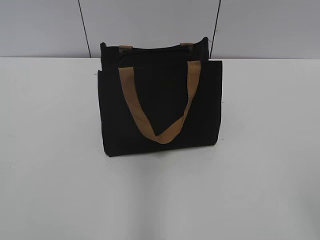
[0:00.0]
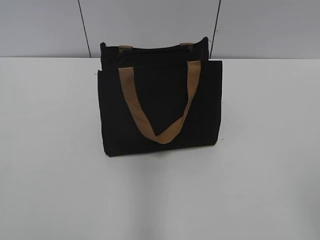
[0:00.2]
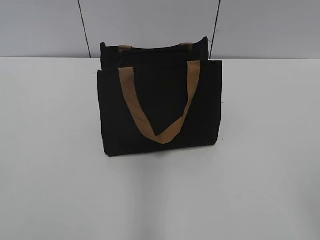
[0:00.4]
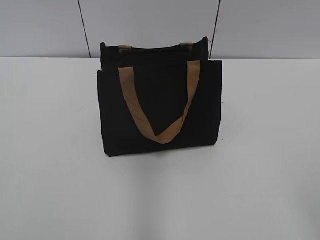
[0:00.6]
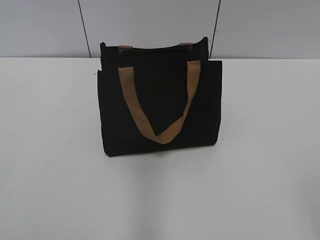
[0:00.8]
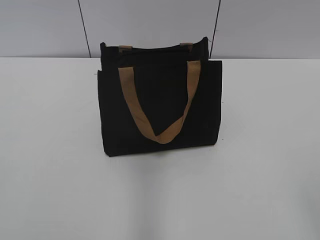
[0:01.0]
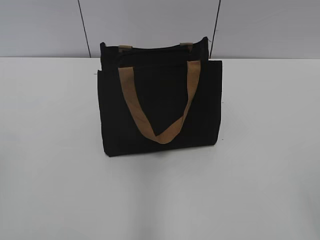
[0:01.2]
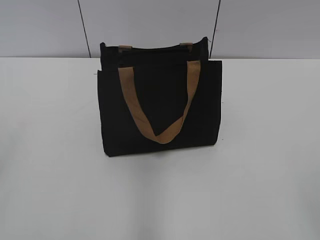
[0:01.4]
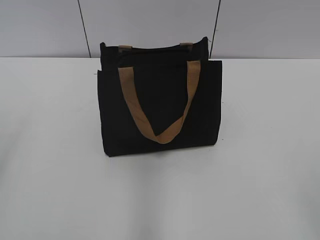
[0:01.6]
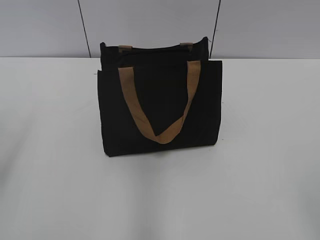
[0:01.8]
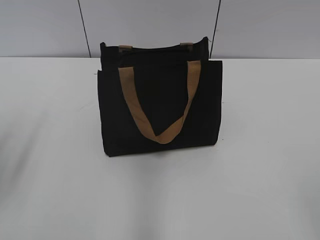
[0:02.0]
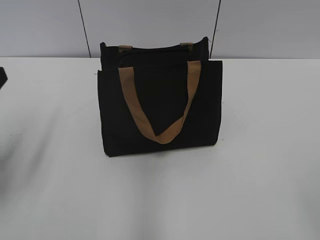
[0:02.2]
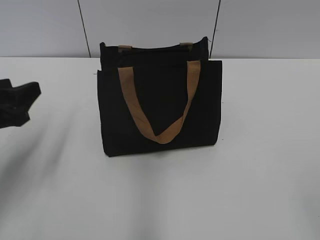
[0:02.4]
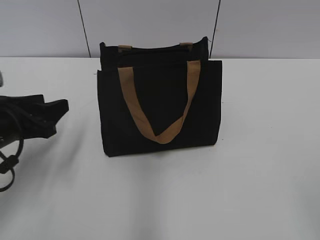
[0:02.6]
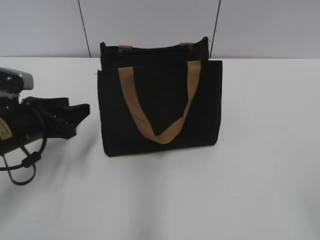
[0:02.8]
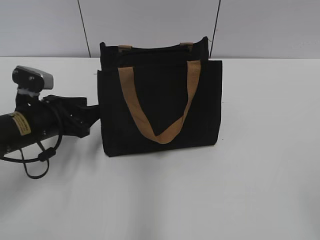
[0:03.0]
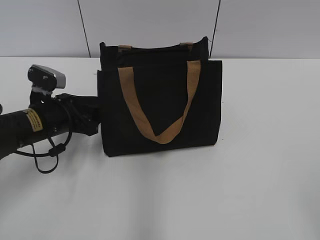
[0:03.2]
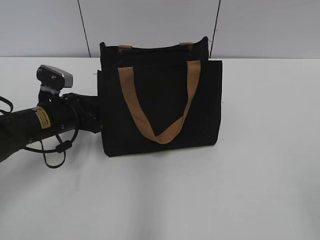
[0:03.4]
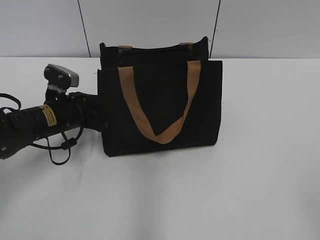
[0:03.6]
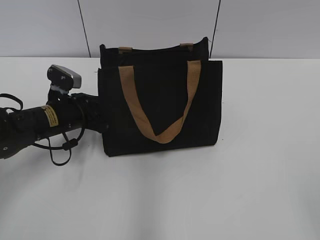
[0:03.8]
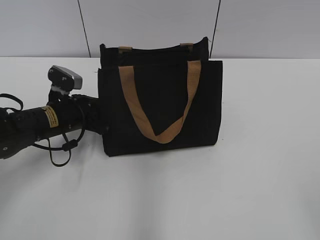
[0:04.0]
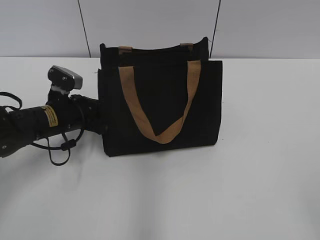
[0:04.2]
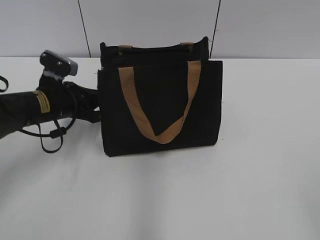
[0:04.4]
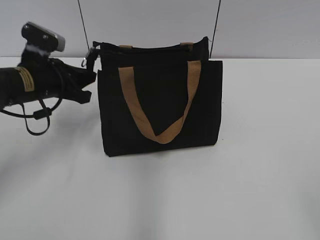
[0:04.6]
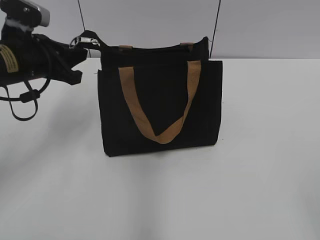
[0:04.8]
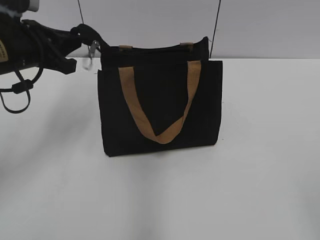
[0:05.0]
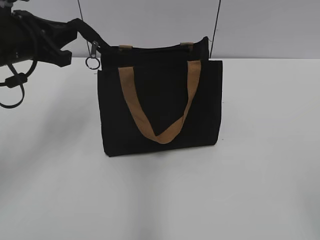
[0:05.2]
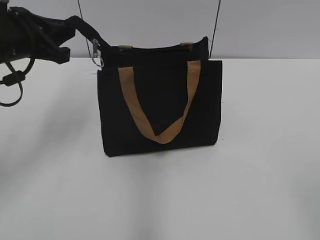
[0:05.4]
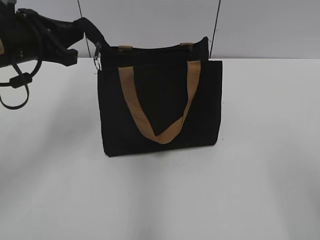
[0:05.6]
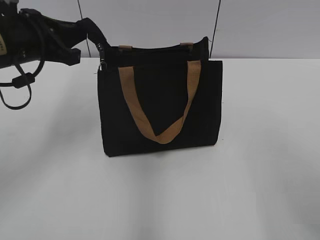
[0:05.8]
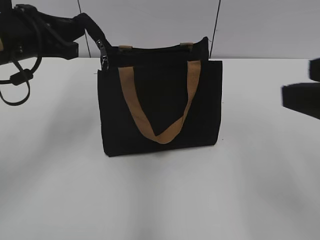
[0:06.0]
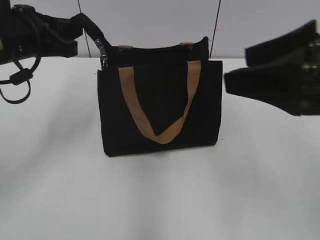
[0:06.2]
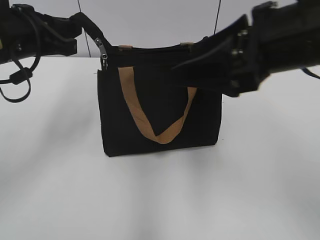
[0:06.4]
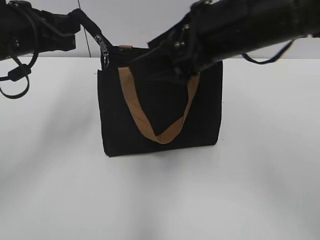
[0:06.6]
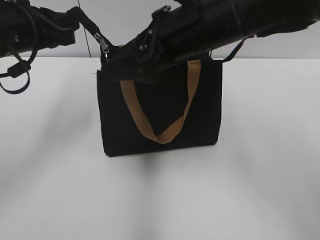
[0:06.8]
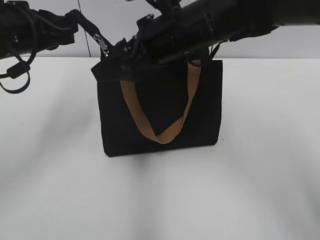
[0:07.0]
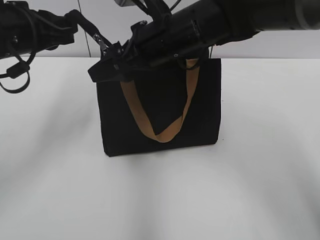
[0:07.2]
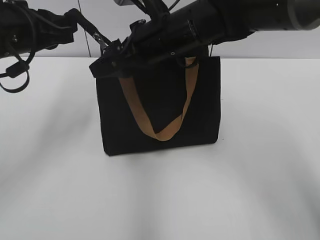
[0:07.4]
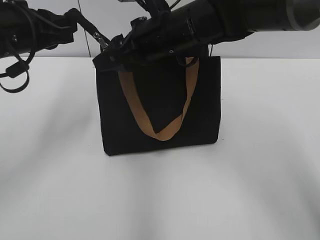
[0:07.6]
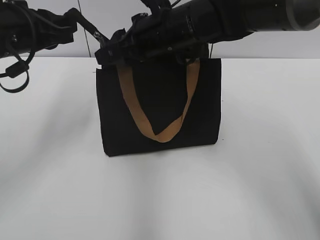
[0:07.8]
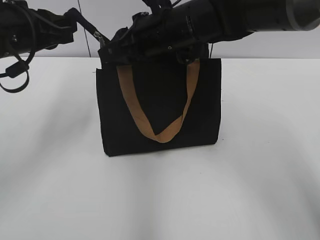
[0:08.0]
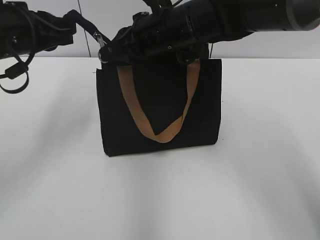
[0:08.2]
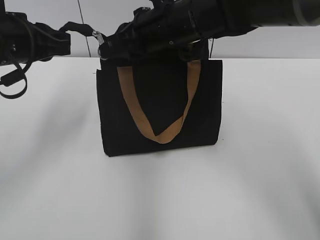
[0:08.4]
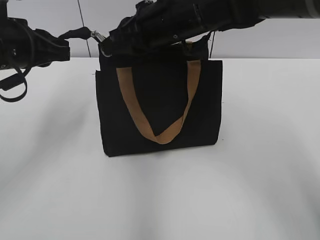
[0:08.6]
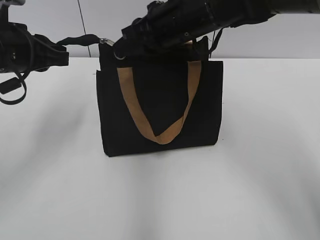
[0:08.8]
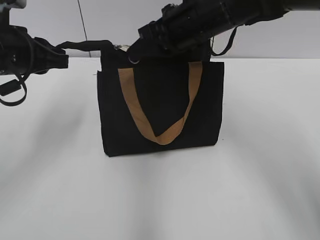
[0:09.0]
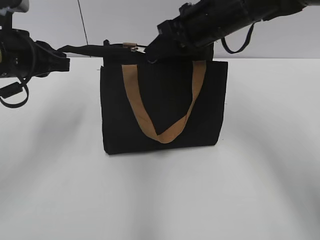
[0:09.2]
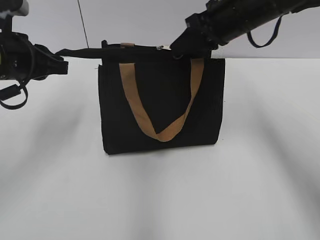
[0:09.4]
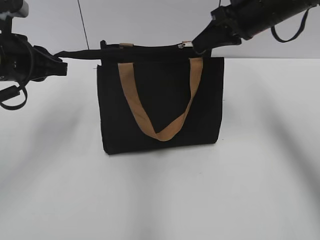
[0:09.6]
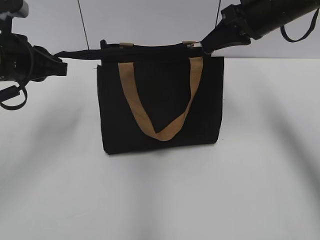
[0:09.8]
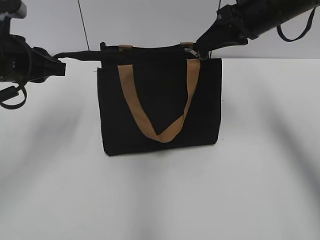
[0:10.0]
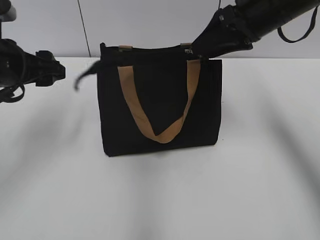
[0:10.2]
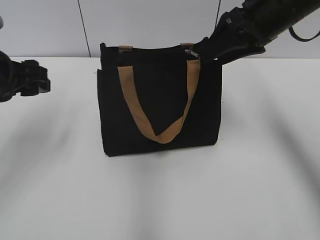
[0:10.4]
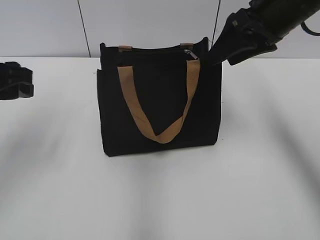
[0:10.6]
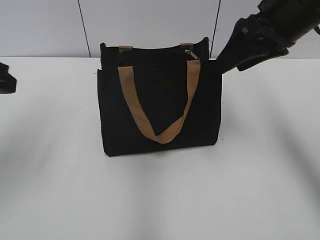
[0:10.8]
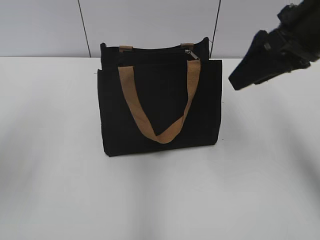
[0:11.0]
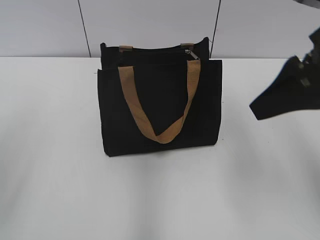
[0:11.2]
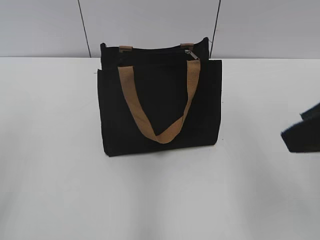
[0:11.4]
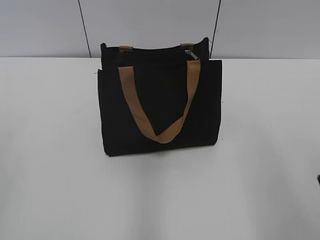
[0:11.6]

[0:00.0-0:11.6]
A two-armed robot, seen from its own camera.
Step, 0:00.0 to 0:09.8: Zip up the bag with your right hand.
0:01.4 to 0:02.8: The left gripper moves forward and downward, some 25 cm.
0:02.8 to 0:04.4: The left gripper shifts some 10 cm forward, and closes its fingers.
0:04.4 to 0:05.8: The left gripper travels upward by roughly 15 cm.
0:05.8 to 0:07.2: The right gripper moves forward and to the left, some 35 cm.
0:07.2 to 0:08.8: The right gripper closes its fingers.
0:08.8 to 0:10.2: The left gripper opens. The right gripper goes roughly 15 cm to the right, and opens.
0:10.2 to 0:11.6: Both grippers travel together backward, some 25 cm.

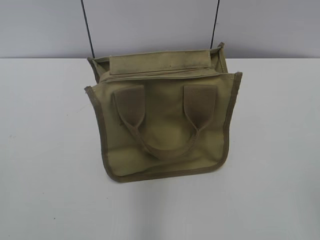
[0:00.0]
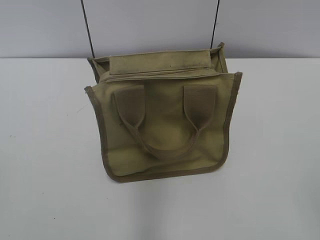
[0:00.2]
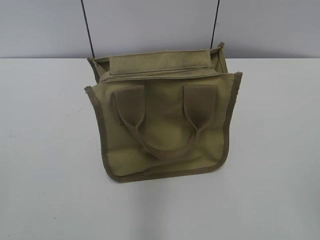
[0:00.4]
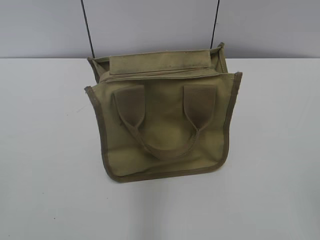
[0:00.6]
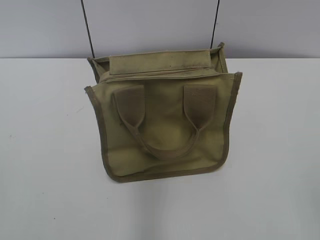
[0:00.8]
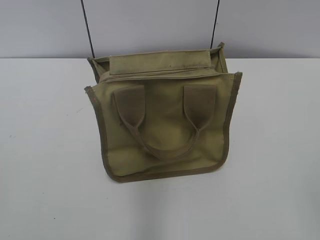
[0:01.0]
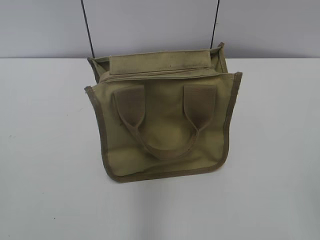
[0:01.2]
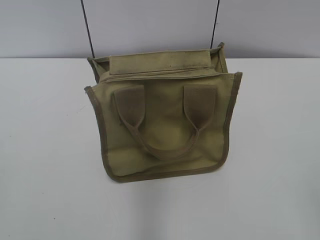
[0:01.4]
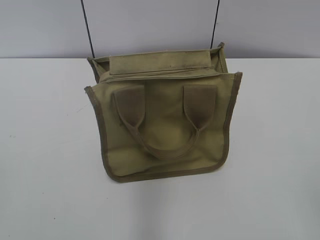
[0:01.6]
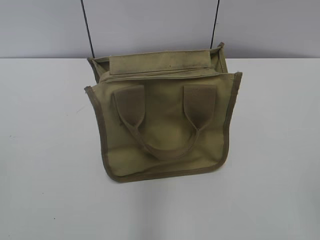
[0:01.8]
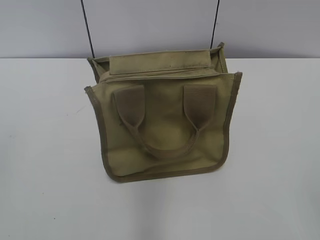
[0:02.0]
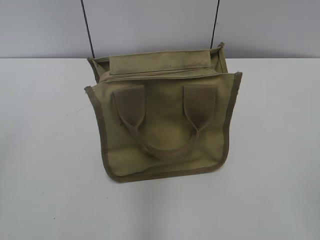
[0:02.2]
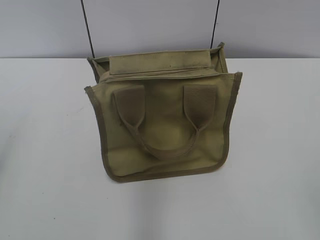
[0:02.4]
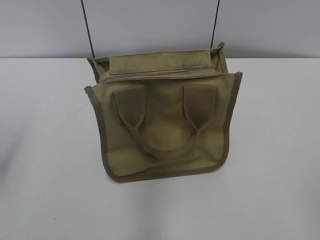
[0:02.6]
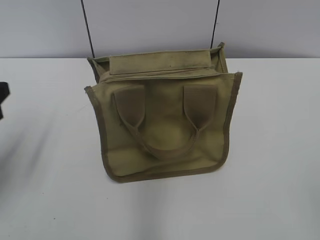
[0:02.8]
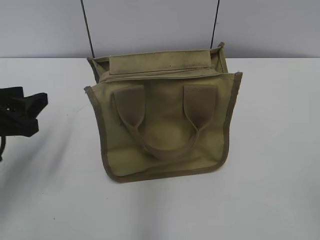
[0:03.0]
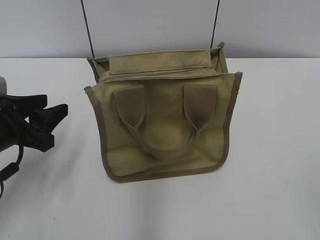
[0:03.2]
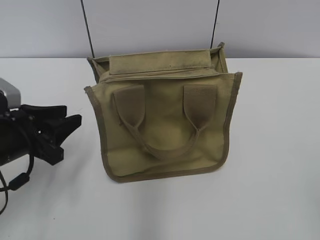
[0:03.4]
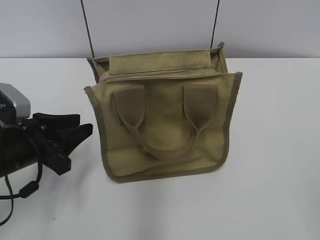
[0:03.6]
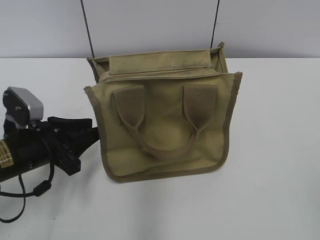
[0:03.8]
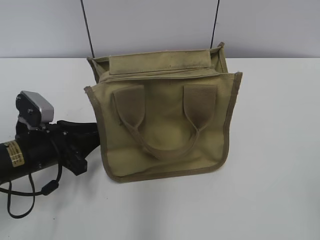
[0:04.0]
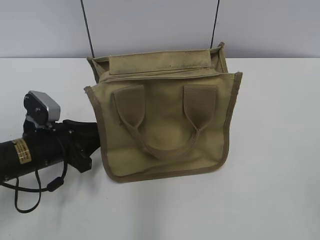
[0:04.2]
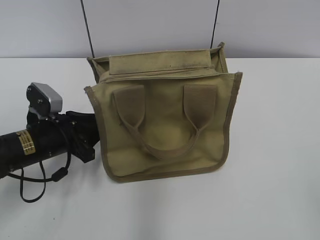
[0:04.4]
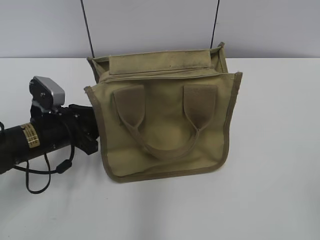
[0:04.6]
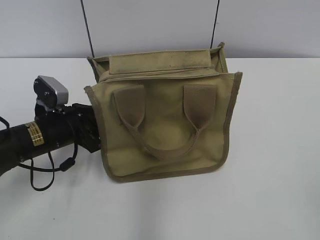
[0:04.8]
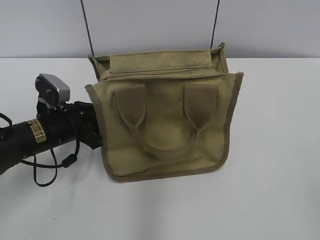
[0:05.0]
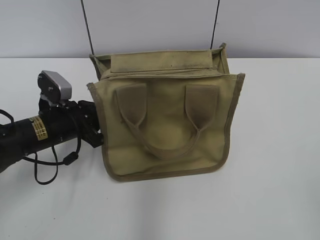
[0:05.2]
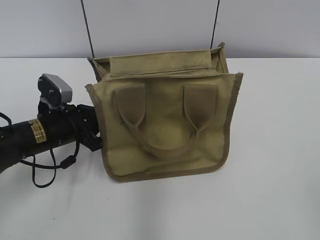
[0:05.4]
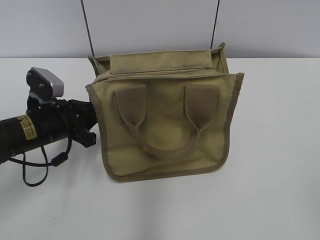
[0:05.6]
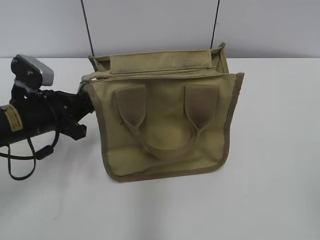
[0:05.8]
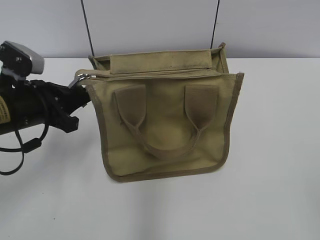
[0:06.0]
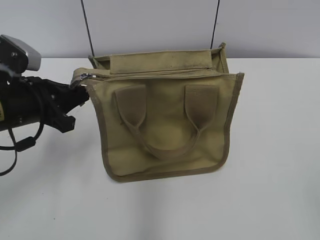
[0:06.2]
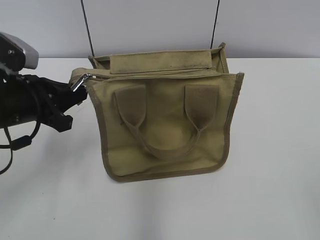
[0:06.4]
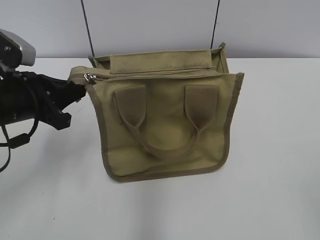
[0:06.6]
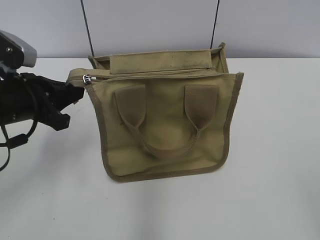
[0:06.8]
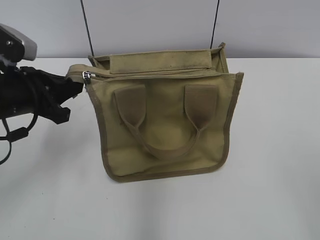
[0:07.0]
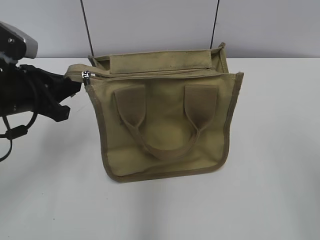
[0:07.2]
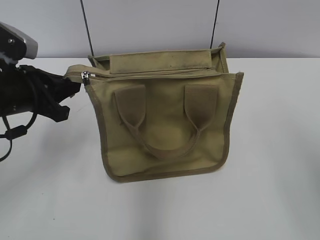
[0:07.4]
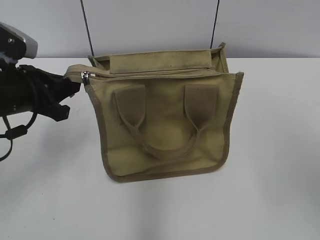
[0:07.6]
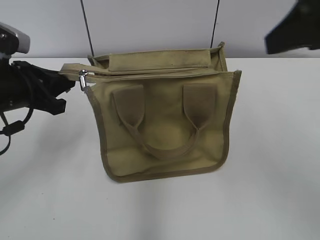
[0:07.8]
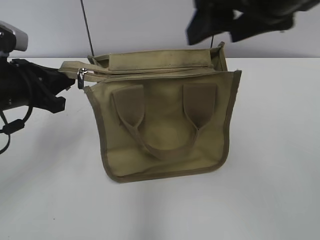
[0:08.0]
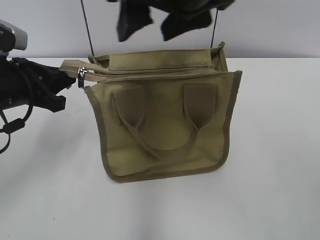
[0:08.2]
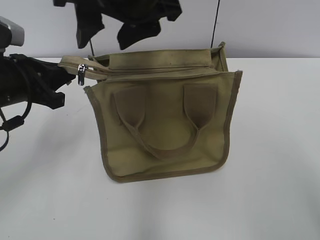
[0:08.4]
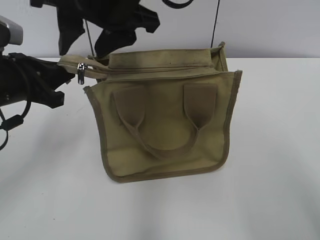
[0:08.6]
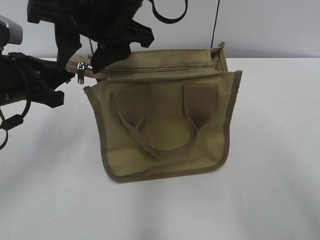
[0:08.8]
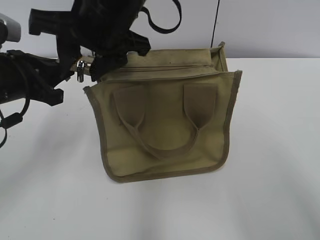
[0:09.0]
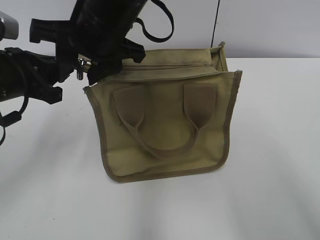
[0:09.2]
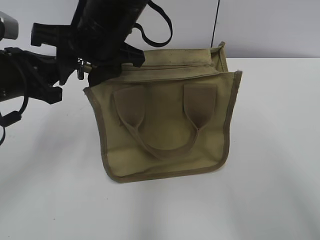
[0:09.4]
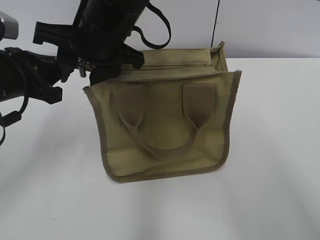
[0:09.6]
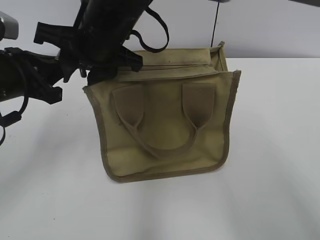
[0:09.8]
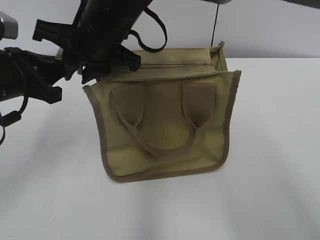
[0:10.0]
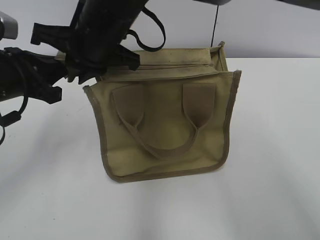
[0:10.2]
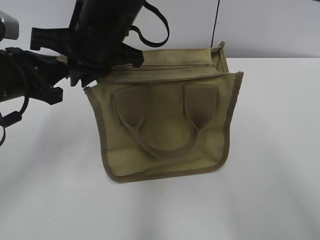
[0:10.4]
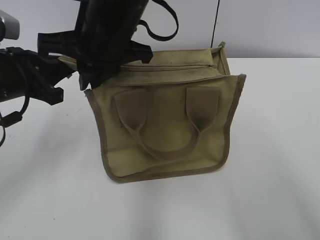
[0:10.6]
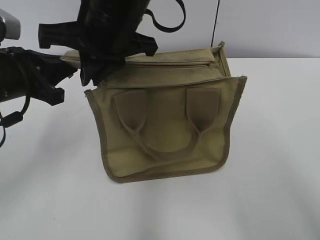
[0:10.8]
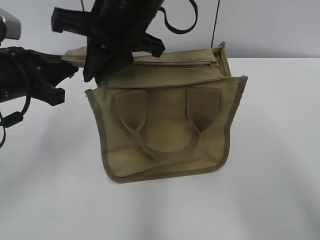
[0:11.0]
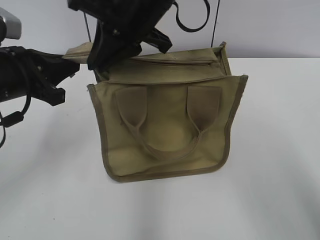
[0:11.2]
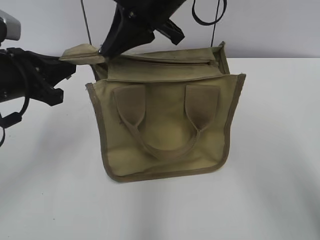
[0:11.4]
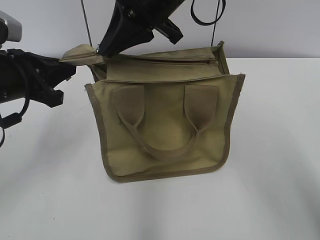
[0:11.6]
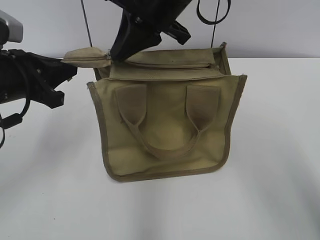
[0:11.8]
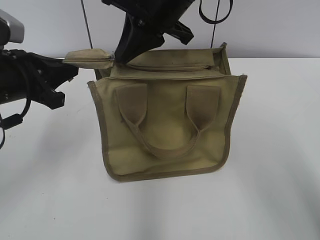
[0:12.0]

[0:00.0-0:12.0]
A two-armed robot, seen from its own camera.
0:01.6 to 0:03.0: The left gripper travels forward and downward by about 25 cm.
0:03.0 to 0:04.4: The left gripper heads downward and to the right, covering about 10 cm, and closes up.
0:04.4 to 0:06.0: The left gripper goes approximately 5 cm upward, and closes its fingers.
0:06.0 to 0:07.6: The right gripper goes some 20 cm forward and upward.
0:07.6 to 0:09.0: The right gripper shifts approximately 30 cm to the left and forward.
0:09.0 to 0:10.4: The right gripper closes its fingers.
0:10.4 to 0:12.0: The right gripper heads to the right, covering roughly 10 cm.
